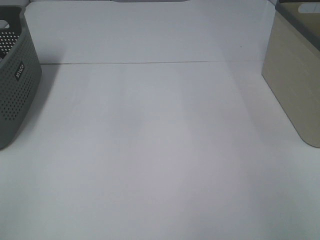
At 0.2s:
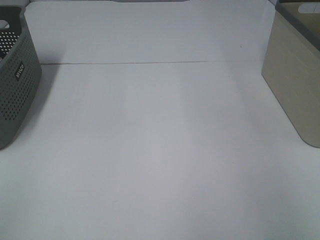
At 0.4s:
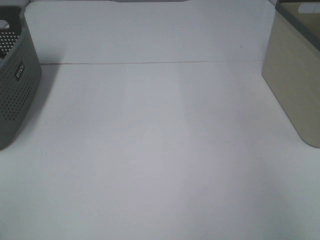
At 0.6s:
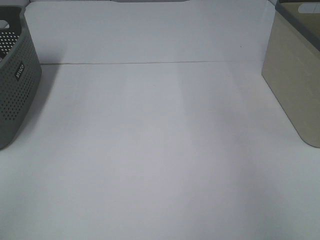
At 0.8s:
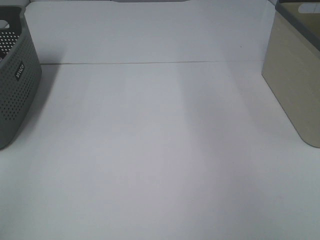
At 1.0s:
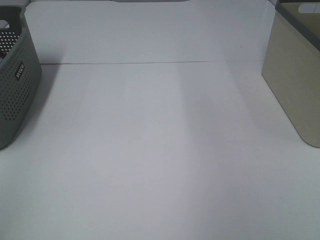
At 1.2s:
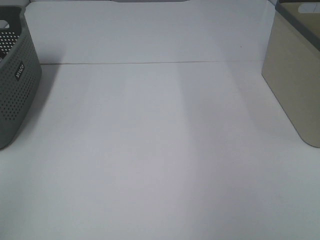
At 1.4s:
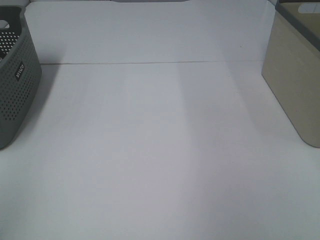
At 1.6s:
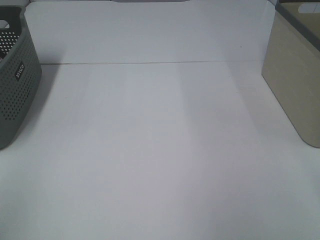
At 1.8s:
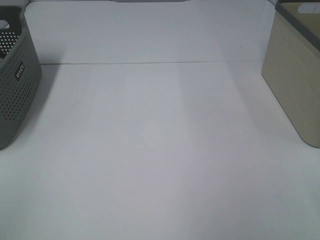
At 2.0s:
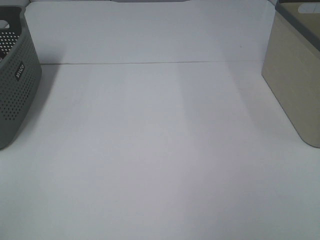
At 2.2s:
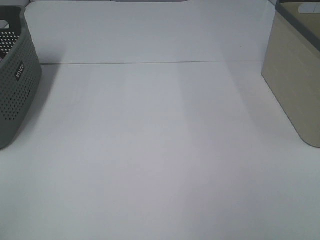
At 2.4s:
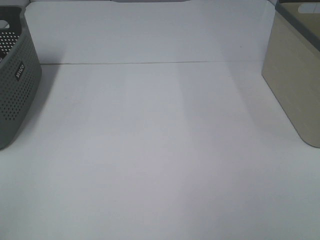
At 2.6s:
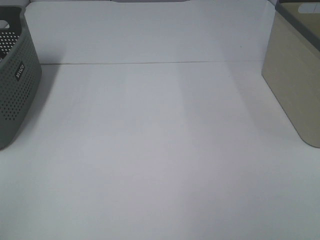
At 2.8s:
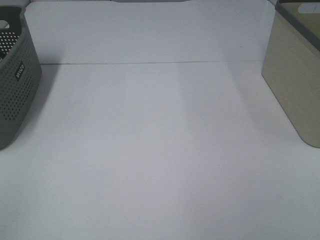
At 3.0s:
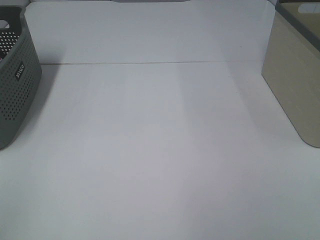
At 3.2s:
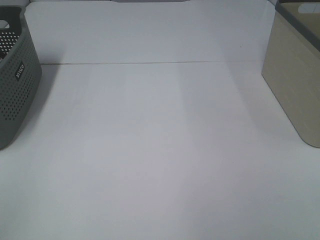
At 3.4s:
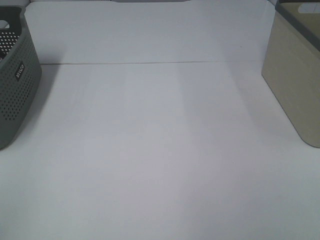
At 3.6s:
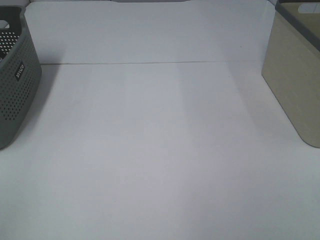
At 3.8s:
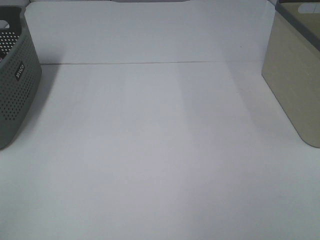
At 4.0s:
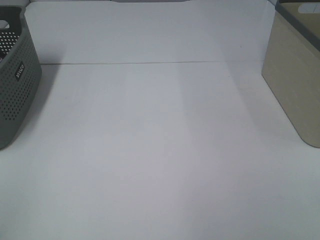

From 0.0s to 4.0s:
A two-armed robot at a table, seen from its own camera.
From 2.6s to 4.0s: Neither gripper changes place.

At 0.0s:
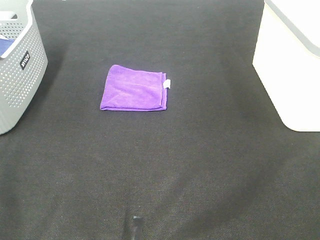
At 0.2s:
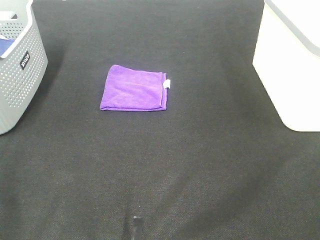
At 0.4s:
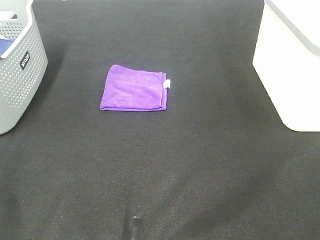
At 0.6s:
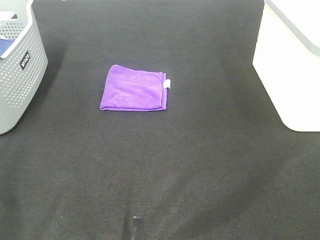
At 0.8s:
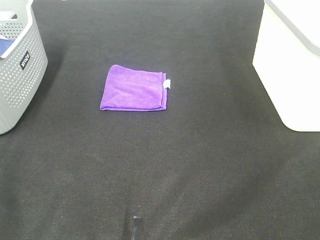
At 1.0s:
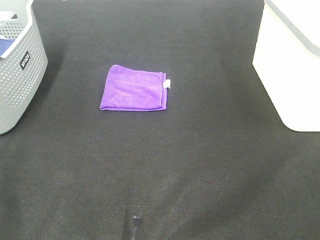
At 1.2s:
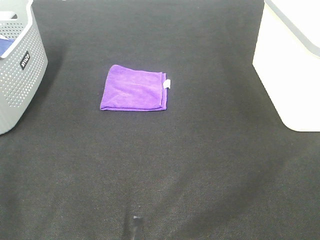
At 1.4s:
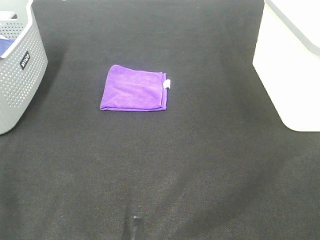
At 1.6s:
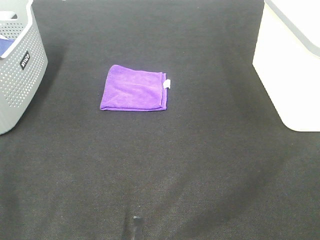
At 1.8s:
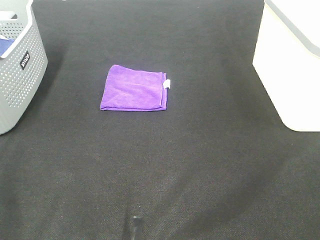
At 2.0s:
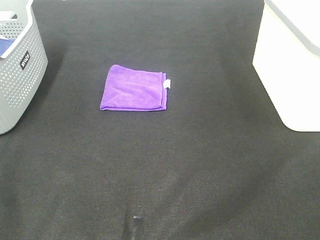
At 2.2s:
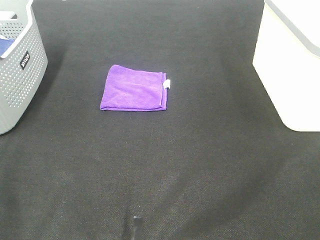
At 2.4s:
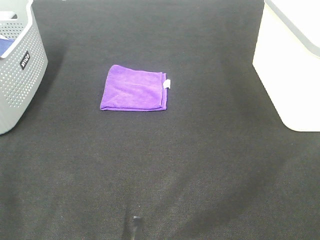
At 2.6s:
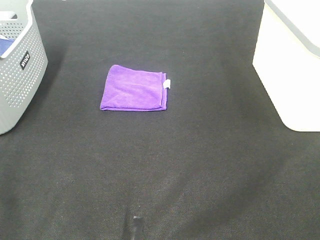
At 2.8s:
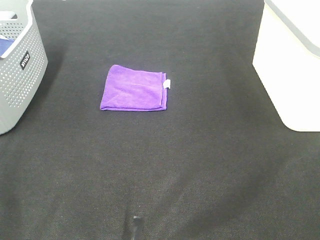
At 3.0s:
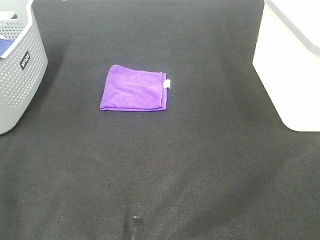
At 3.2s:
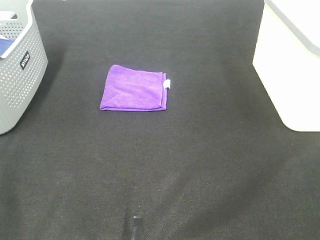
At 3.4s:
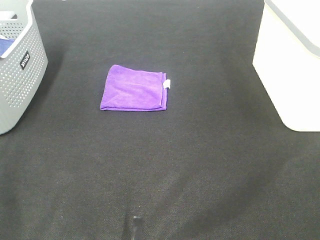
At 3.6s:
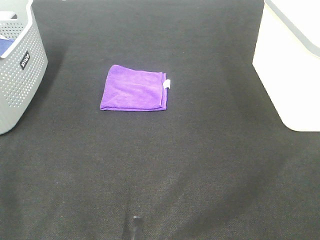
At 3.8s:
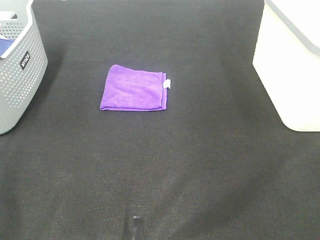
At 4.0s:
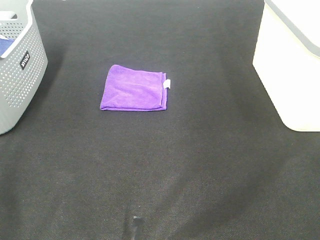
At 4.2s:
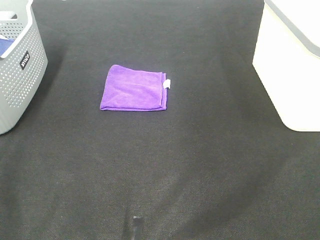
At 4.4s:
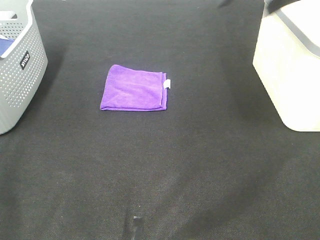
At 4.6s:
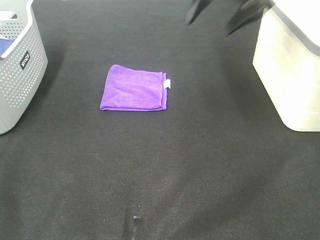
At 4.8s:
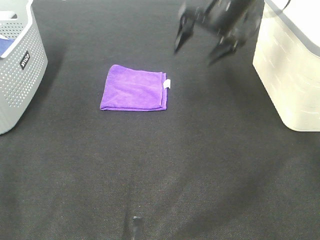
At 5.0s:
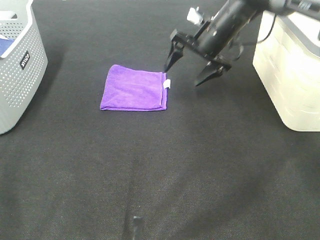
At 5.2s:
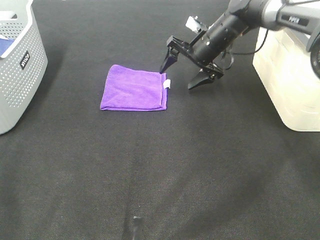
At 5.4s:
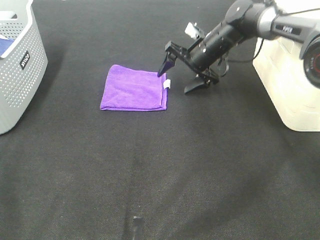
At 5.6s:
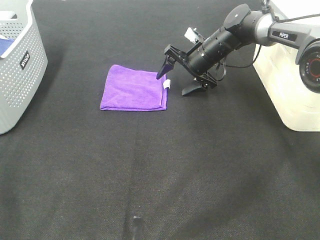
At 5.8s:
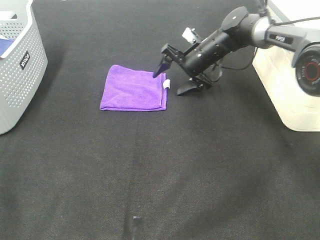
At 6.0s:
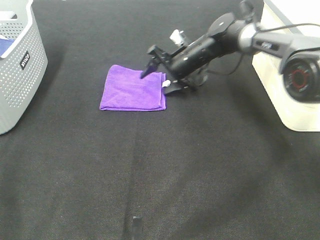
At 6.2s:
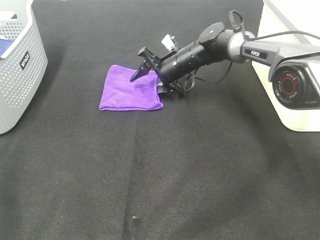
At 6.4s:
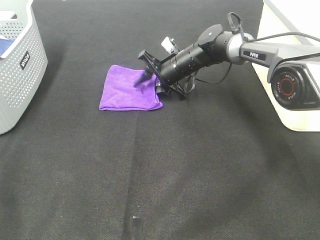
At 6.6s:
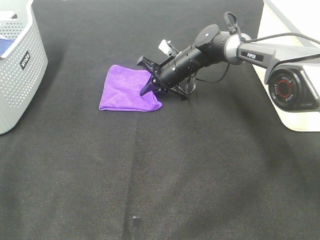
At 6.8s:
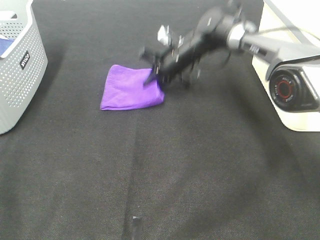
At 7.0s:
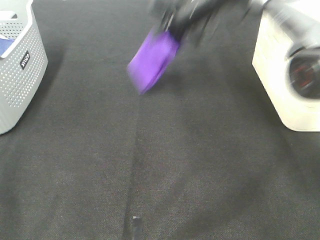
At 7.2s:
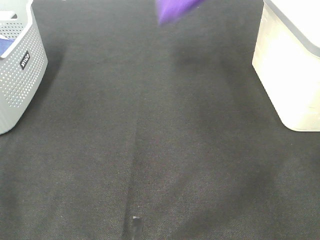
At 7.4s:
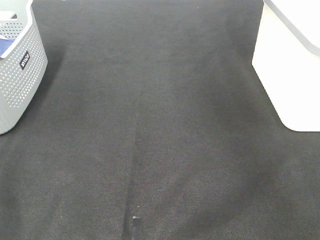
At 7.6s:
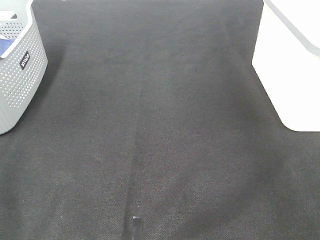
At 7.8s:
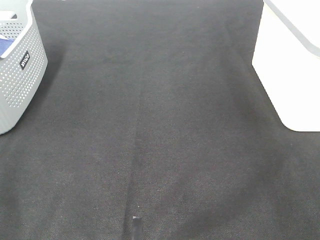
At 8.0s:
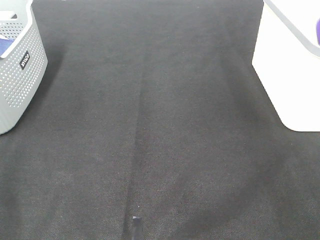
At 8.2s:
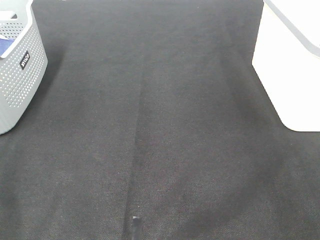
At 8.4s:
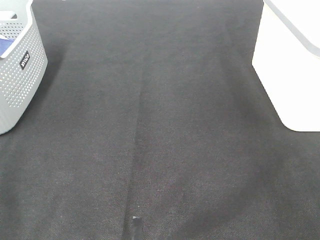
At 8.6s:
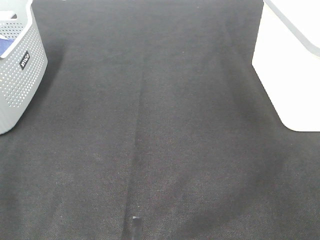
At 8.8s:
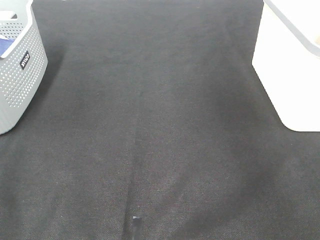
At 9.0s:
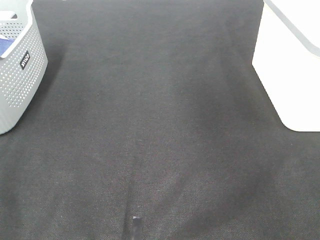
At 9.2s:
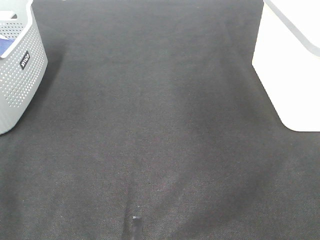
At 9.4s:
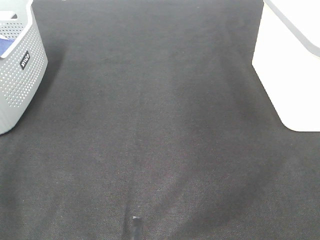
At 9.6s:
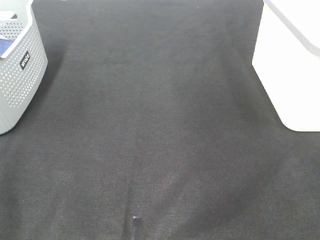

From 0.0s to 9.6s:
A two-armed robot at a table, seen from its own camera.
Step, from 0.0s to 6.6s: Right hand: grab the folded purple towel.
Step, from 6.8s to 8.4s: Right hand: place the purple towel in right basket.
From 0.0s to 3.2s: Both grippers stay about where they are.
From 3.2s to 4.8s: The right gripper is displaced forward by some 50 cm.
From 4.8s to 6.4s: The right gripper travels downward and to the left by some 20 cm, and closes up.
From 6.4s to 8.0s: The right gripper travels to the right and upward by about 50 cm.

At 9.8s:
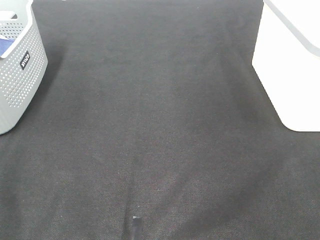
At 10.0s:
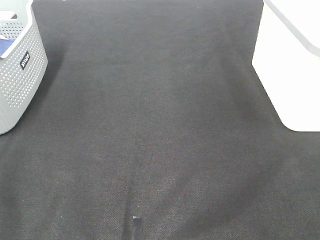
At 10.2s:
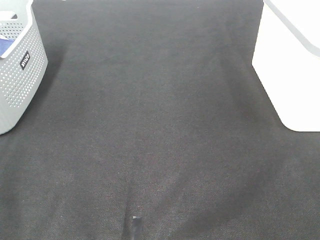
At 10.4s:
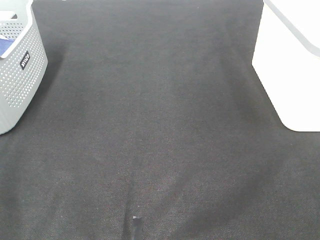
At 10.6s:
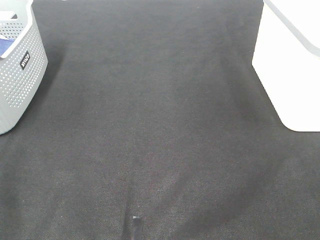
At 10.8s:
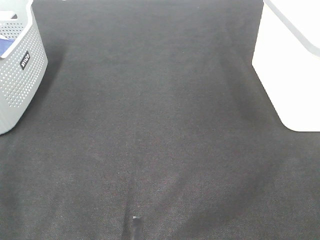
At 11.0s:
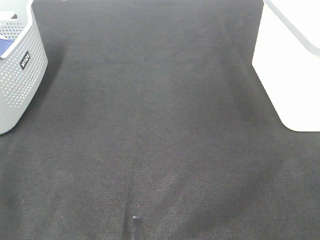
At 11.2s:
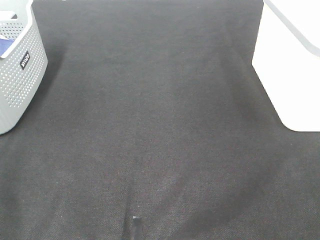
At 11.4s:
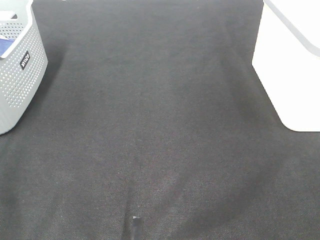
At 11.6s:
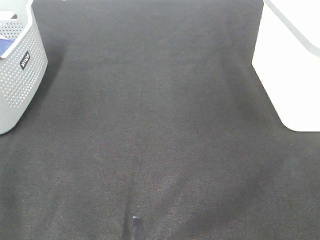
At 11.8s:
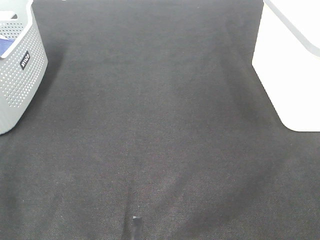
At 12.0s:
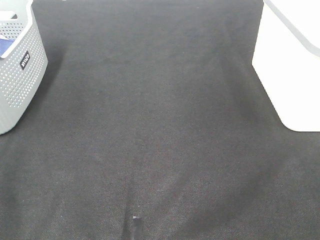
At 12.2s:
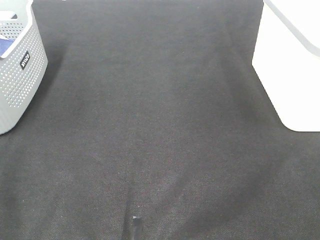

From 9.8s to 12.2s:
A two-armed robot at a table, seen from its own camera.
From 11.0s to 12.2s: Both grippers stay put.

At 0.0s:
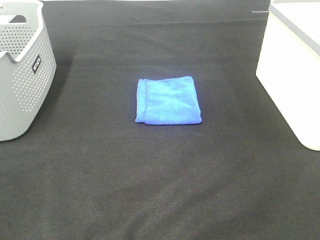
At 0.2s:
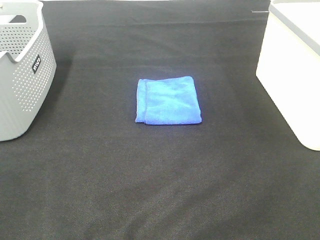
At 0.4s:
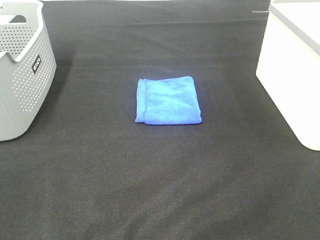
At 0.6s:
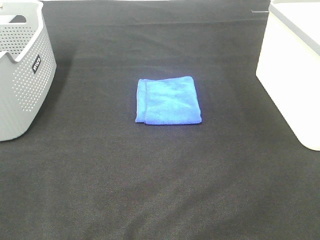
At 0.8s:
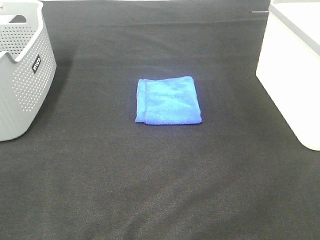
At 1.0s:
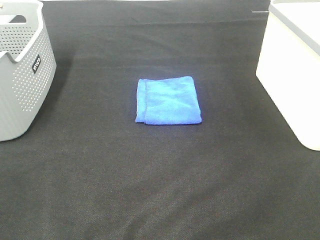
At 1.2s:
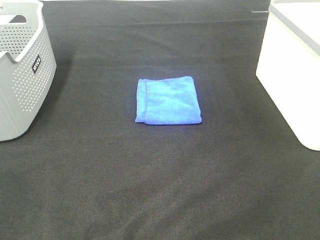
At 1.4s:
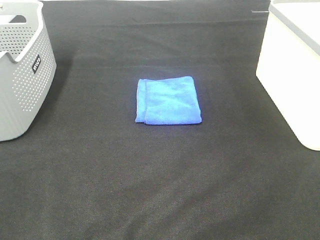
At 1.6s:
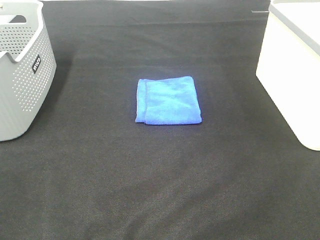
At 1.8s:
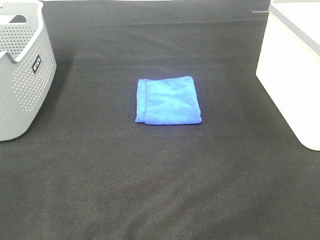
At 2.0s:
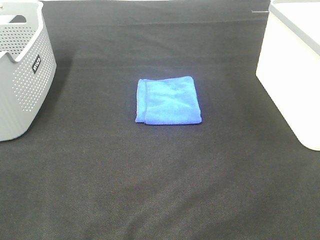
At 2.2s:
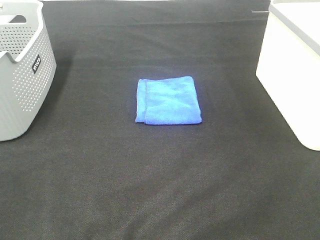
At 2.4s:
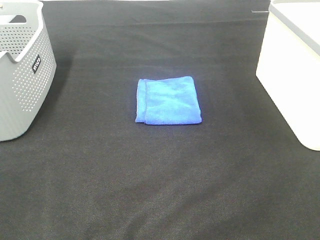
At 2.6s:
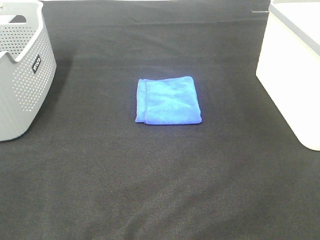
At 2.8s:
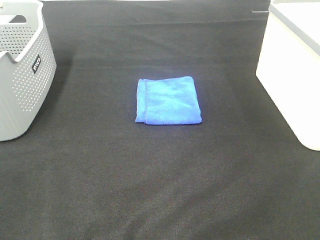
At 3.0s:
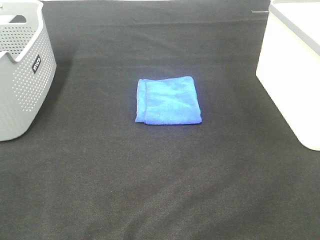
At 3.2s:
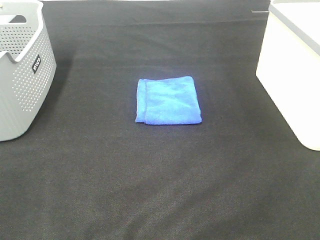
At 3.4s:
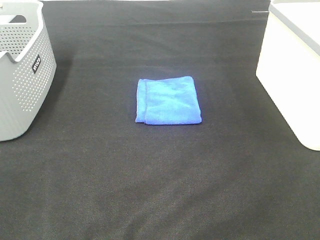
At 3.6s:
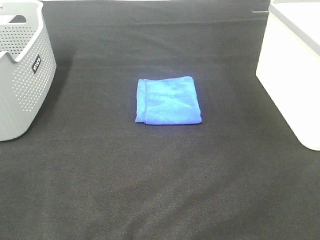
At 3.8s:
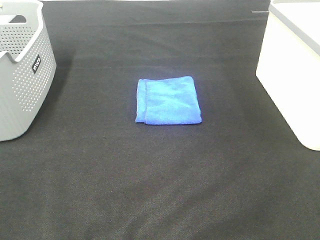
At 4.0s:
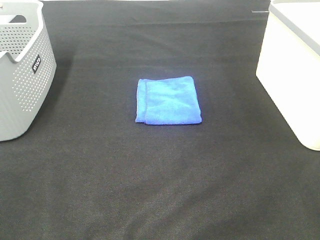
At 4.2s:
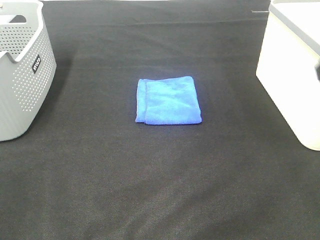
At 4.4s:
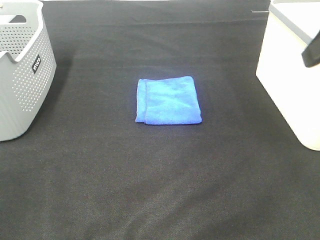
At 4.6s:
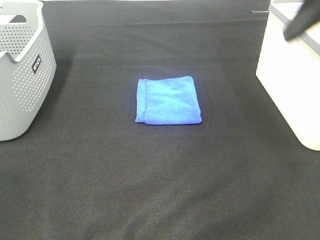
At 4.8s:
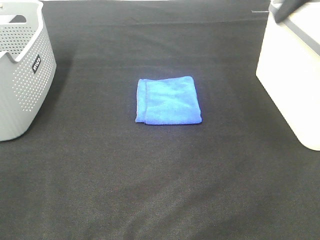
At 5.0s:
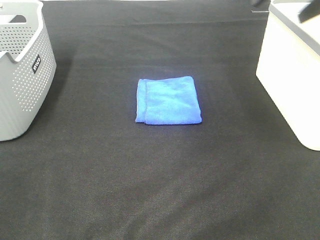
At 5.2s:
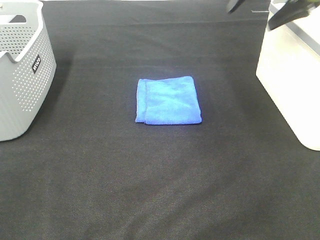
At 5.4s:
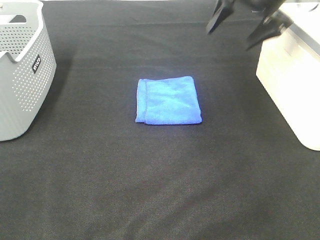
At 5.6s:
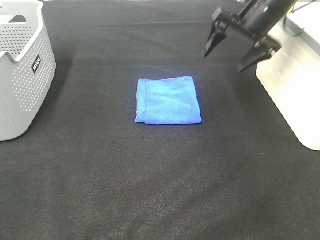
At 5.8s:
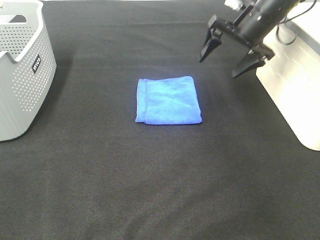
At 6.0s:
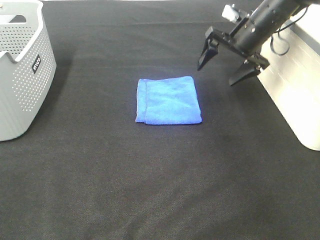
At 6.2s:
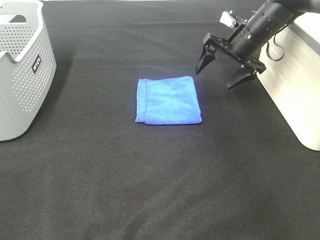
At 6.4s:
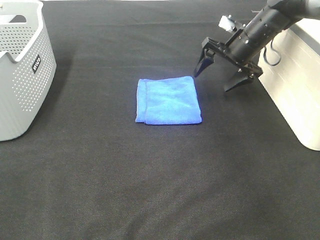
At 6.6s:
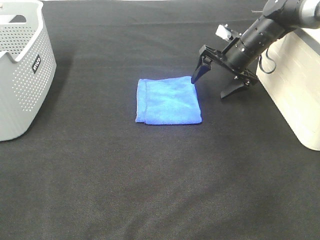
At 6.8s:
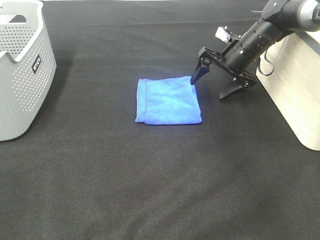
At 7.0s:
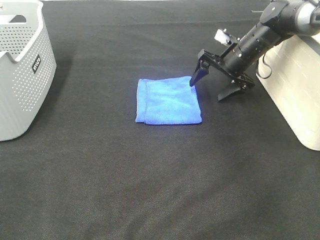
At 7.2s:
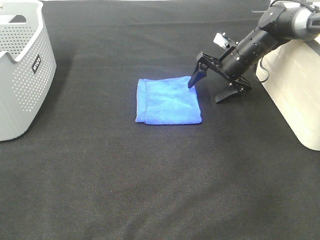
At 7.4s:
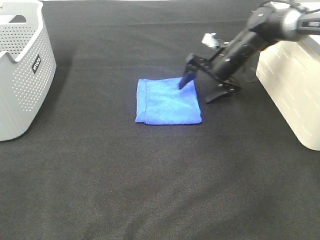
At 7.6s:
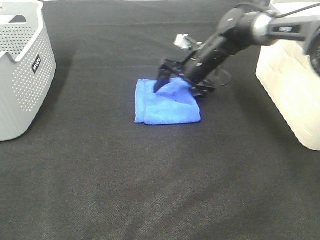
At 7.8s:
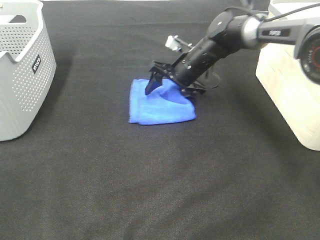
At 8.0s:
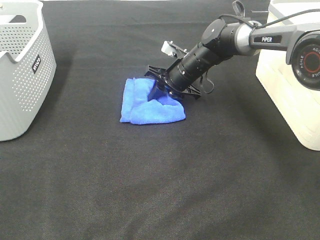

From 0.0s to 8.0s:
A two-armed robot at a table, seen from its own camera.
From 0.0s to 3.2s: The two grippers keep their place.
From 3.2s to 4.8s: The right gripper shifts approximately 30 cm forward.
From 4.8s to 6.4s: The right gripper moves downward and forward, approximately 30 cm.
From 6.4s to 8.0s: The right gripper travels to the left and downward by approximately 15 cm, and closes its fingers.
